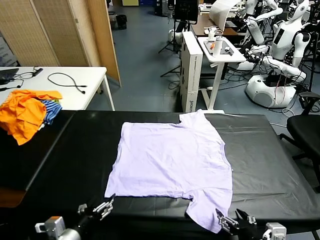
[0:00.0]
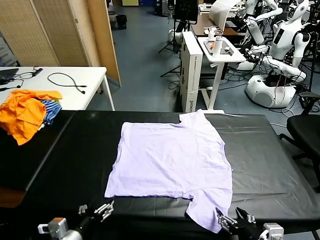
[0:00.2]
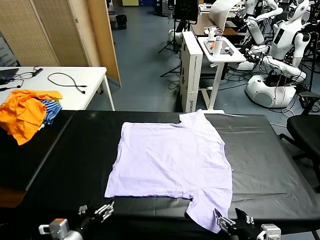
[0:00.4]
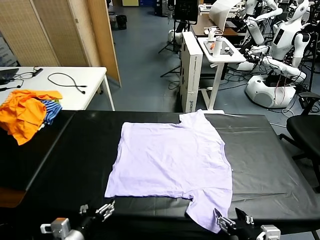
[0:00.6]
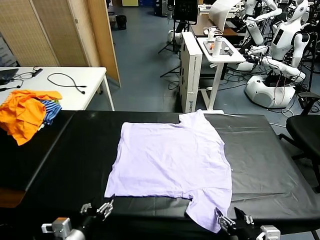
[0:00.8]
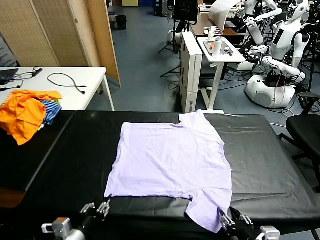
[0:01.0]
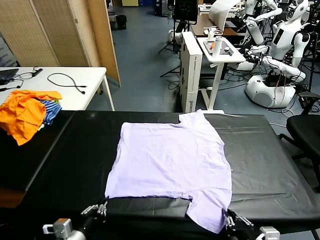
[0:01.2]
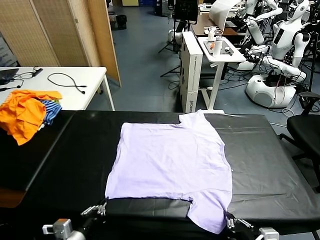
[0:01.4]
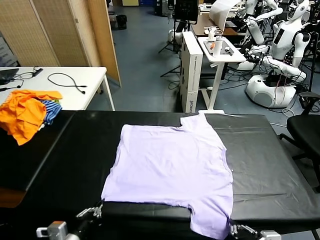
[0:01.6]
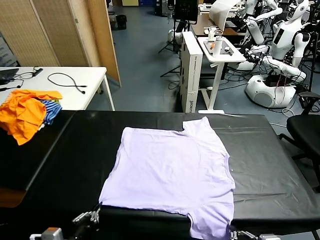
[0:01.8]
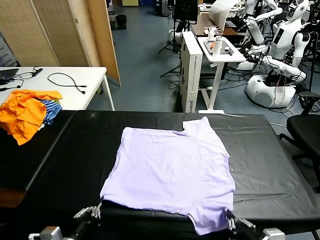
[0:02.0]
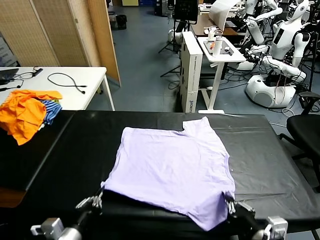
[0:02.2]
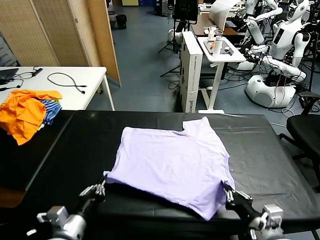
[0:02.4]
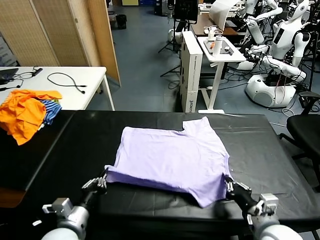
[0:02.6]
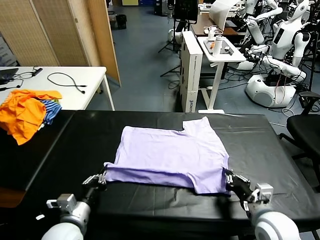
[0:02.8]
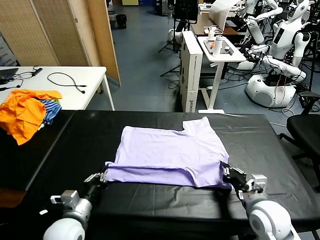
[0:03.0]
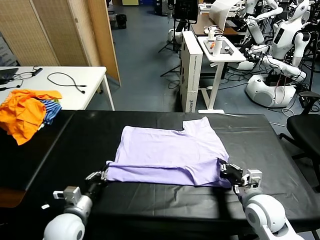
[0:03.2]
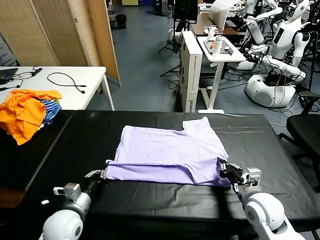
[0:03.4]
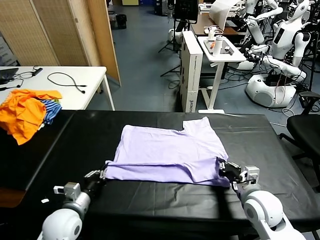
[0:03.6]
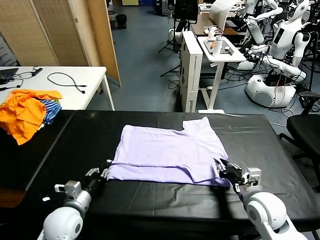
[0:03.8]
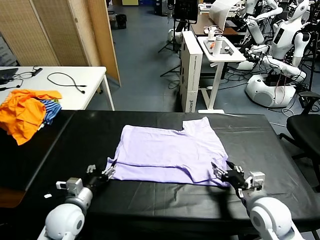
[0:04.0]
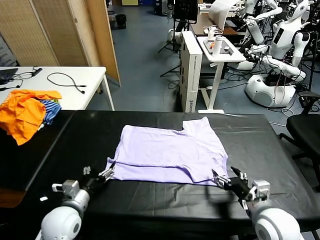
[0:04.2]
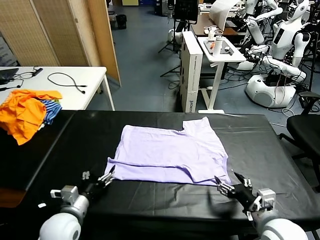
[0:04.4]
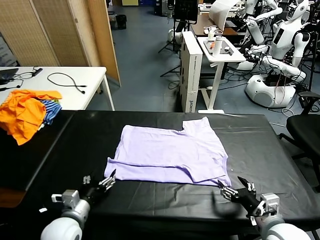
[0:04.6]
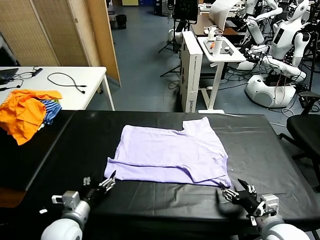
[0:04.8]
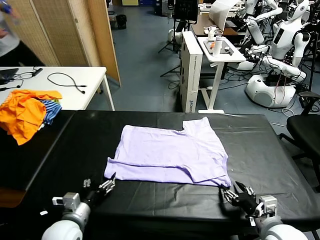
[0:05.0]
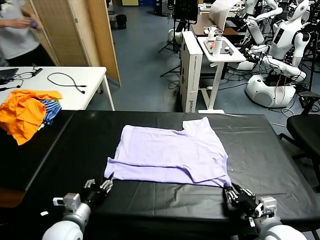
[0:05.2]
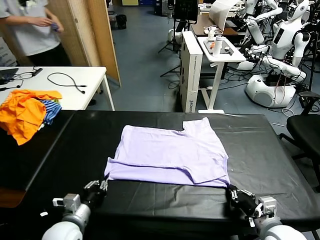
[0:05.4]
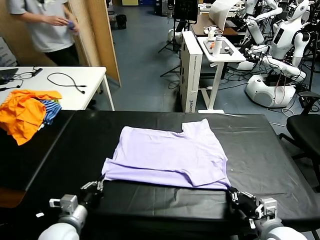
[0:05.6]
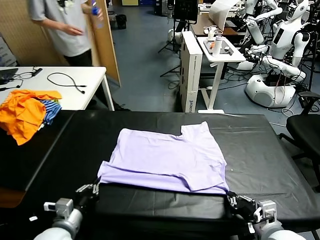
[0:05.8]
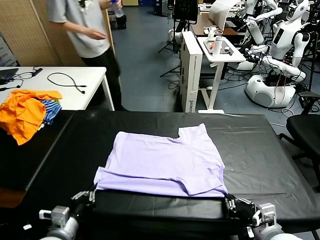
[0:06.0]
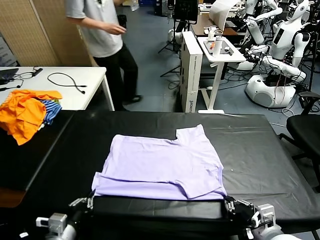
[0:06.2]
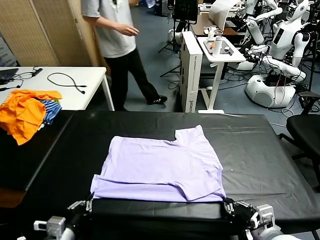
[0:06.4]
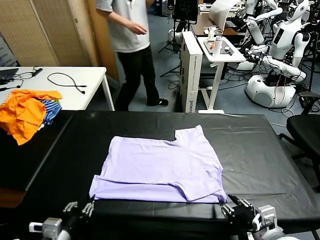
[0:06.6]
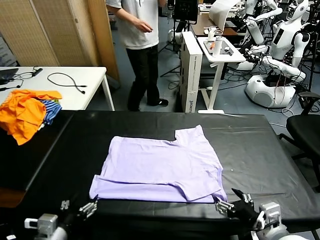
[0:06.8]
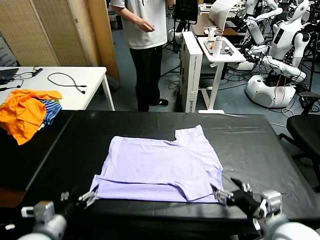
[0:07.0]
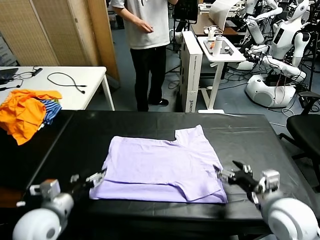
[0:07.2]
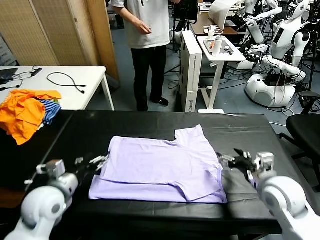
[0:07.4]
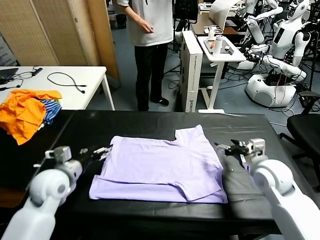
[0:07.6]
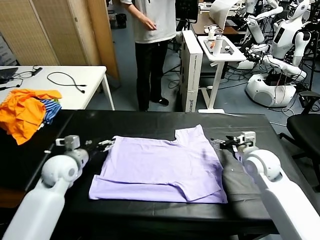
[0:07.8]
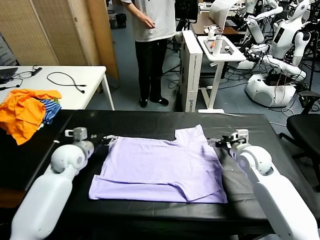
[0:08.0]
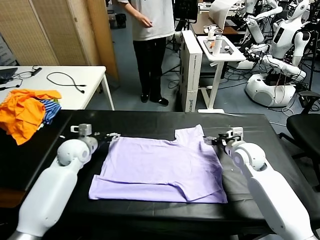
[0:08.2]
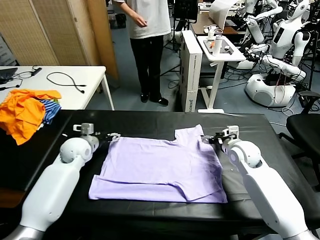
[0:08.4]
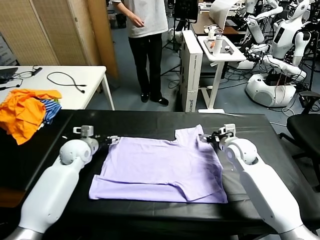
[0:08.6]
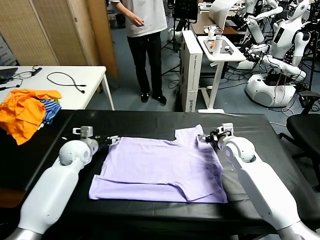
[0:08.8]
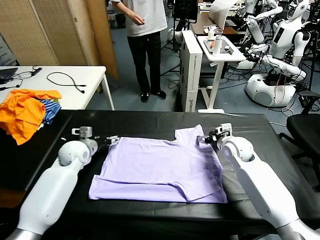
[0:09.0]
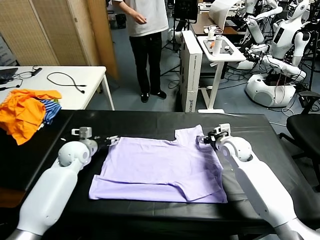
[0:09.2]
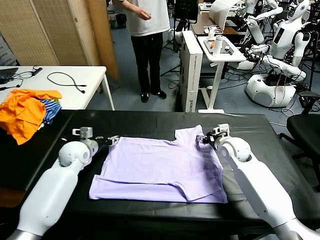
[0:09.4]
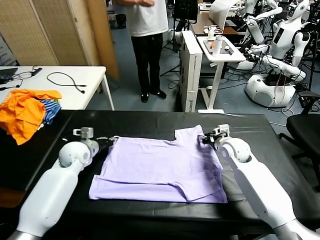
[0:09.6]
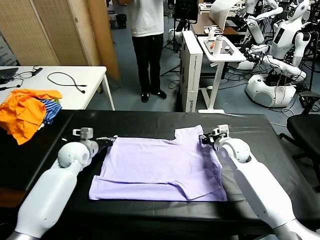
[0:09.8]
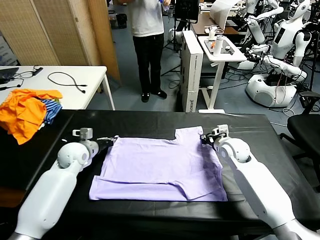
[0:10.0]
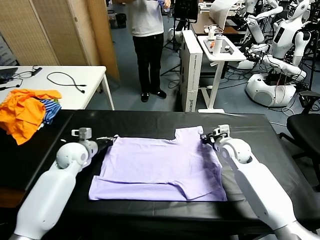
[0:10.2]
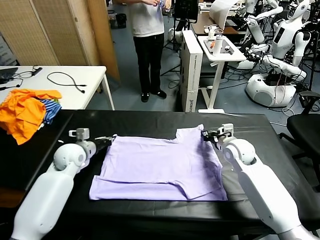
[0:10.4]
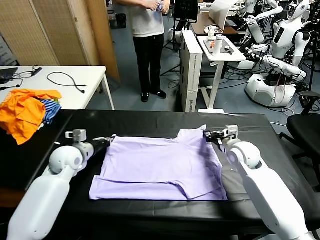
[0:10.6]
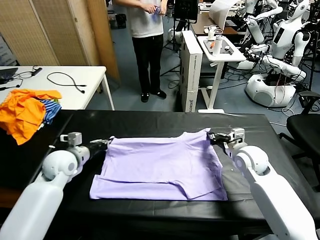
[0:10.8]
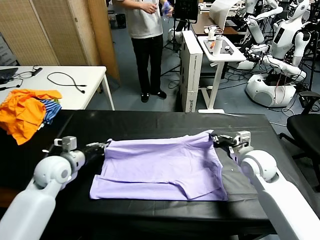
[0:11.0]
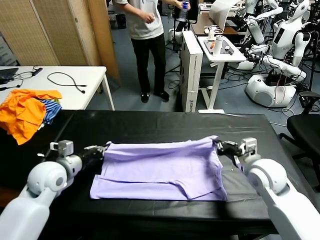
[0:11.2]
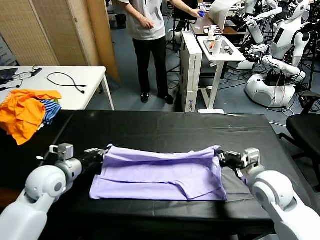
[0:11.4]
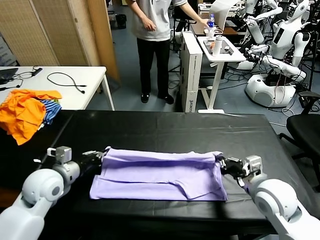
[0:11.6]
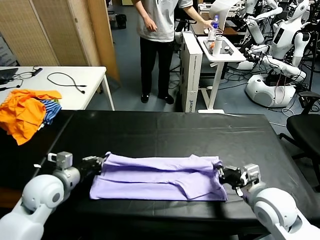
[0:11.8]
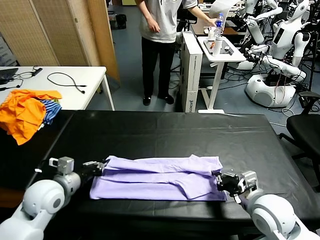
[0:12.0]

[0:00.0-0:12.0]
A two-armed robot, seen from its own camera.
Task of the whole recording: fold and organize the clothes.
Step, 0:00.0 to 0:01.4: use both grippers simultaneously to clamp the lower edge of the clothing fabric.
Step, 0:01.8 to 0:04.0: use both grippers to drag the lower edge of the fabric forward and fold it over the upper edge.
Step, 0:04.2 to 0:06.8: Drag the clothes downward with both gripper.
Step, 0:07.0 to 0:09.8: use both grippers simultaneously to clamp the upper edge of the clothing fabric.
0:01.6 to 0:03.0: The right gripper moves forward, some 20 cm. The left gripper moves forward, about 10 cm.
0:03.0 to 0:04.4: The right gripper heads backward, covering approximately 10 cm, and opens its fingers, while the left gripper opens up.
0:04.4 to 0:06.0: The left gripper goes some 5 cm backward, and closes; the right gripper closes up.
0:06.0 to 0:07.6: The two grippers go some 20 cm forward. The right gripper opens its fingers. The left gripper opens its fingers.
0:07.6 to 0:09.0: The right gripper travels forward by roughly 5 cm. The left gripper travels forward by approximately 10 cm.
0:09.0 to 0:10.4: The left gripper closes, while the right gripper closes up.
0:10.4 to 0:12.0: The grippers both shift backward by about 15 cm.

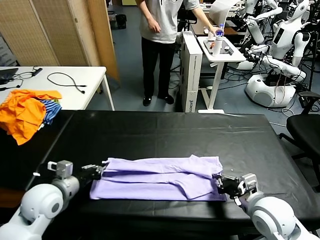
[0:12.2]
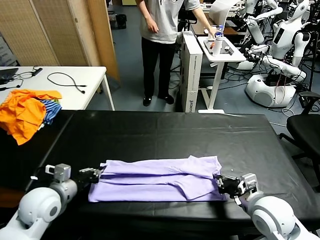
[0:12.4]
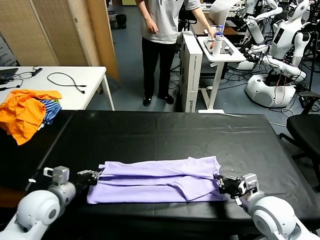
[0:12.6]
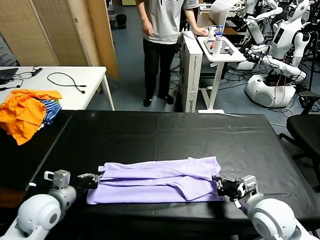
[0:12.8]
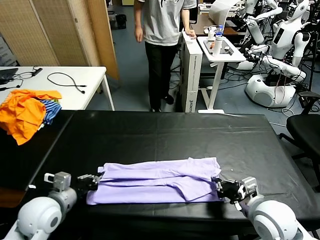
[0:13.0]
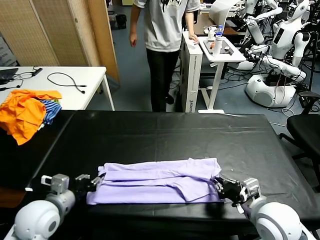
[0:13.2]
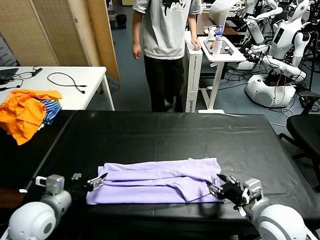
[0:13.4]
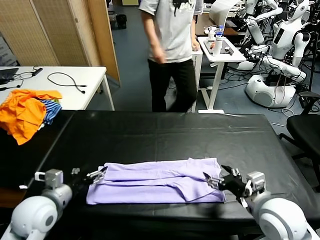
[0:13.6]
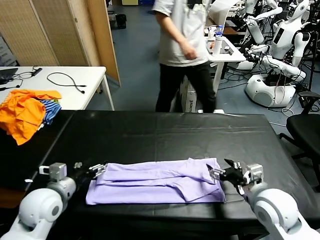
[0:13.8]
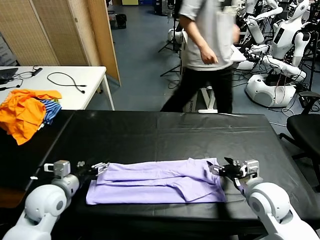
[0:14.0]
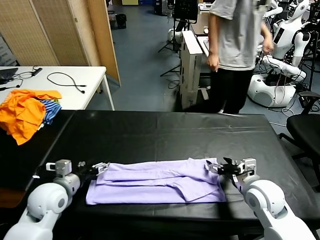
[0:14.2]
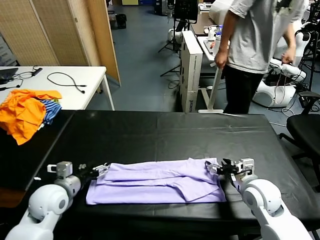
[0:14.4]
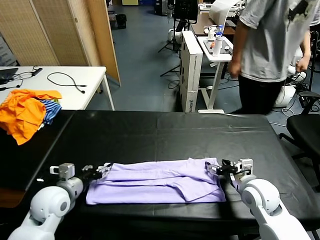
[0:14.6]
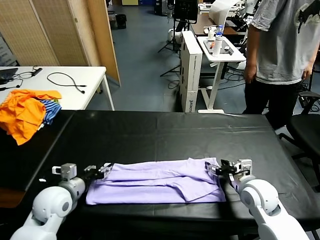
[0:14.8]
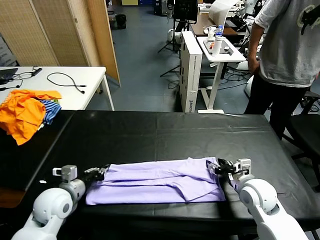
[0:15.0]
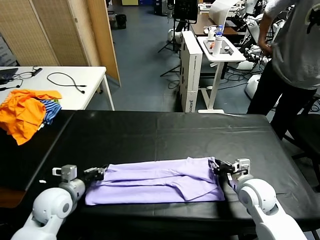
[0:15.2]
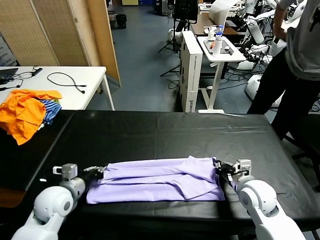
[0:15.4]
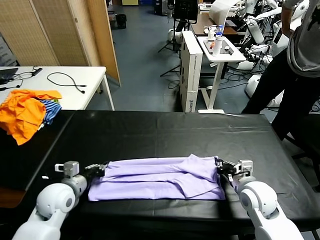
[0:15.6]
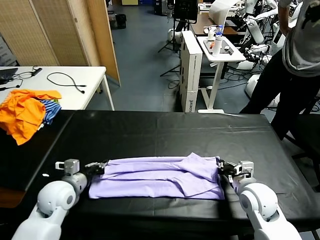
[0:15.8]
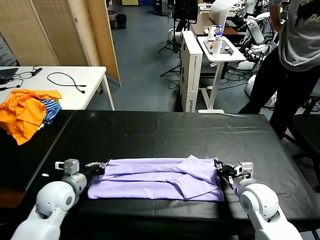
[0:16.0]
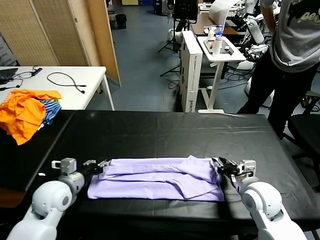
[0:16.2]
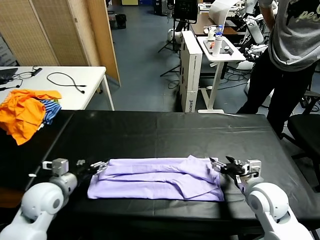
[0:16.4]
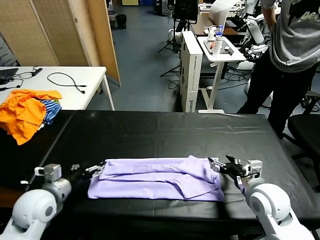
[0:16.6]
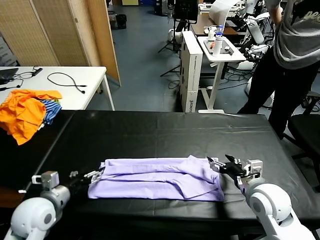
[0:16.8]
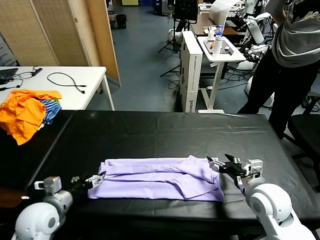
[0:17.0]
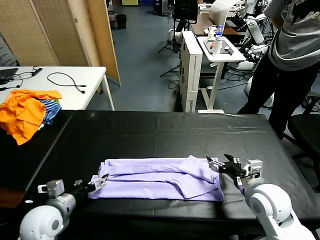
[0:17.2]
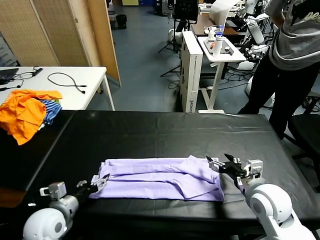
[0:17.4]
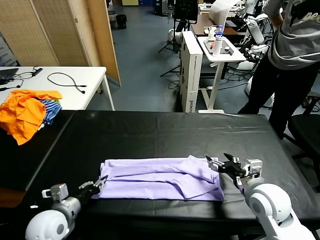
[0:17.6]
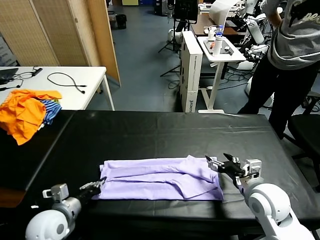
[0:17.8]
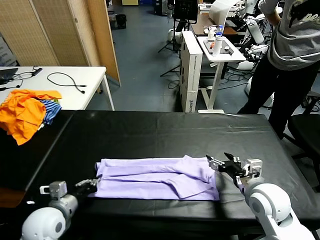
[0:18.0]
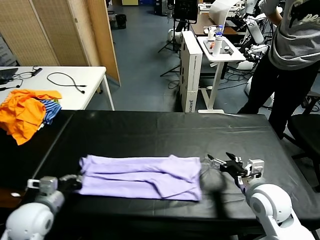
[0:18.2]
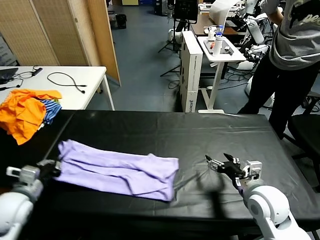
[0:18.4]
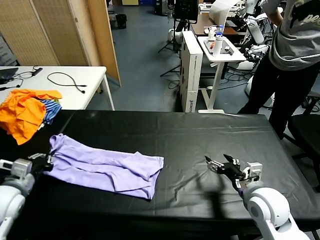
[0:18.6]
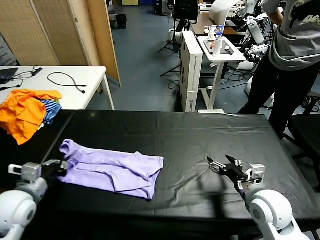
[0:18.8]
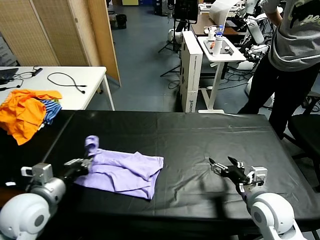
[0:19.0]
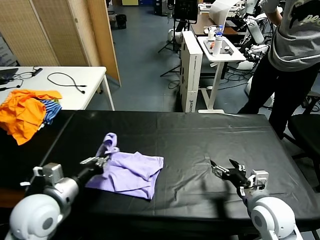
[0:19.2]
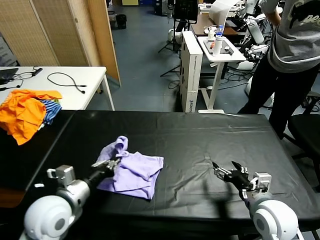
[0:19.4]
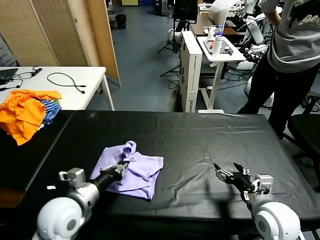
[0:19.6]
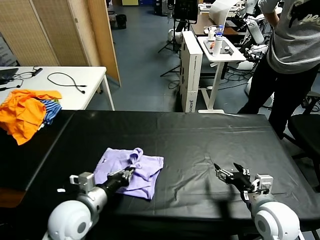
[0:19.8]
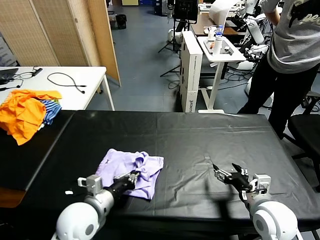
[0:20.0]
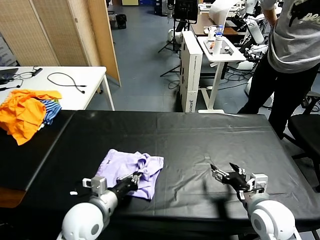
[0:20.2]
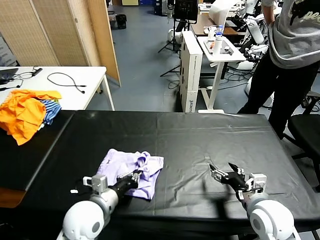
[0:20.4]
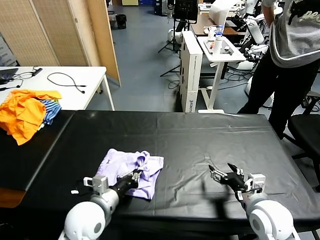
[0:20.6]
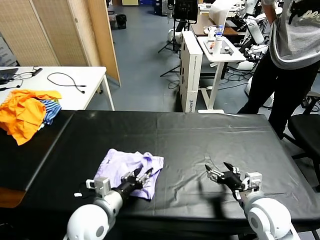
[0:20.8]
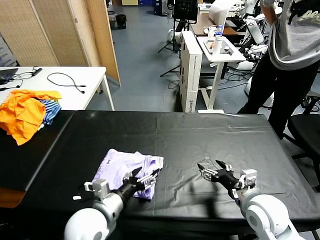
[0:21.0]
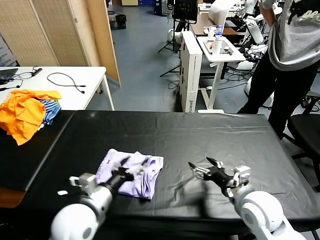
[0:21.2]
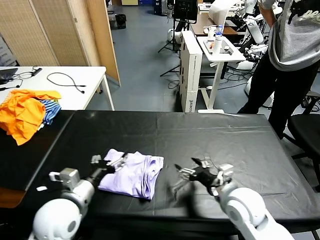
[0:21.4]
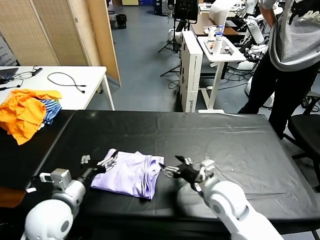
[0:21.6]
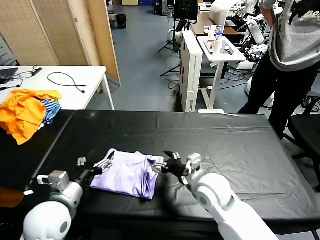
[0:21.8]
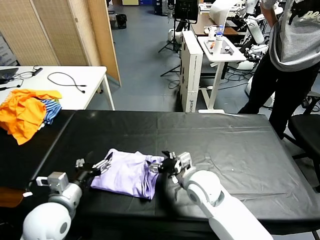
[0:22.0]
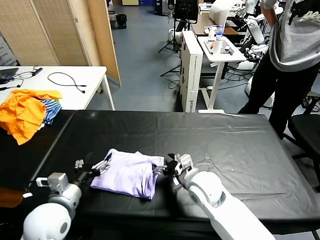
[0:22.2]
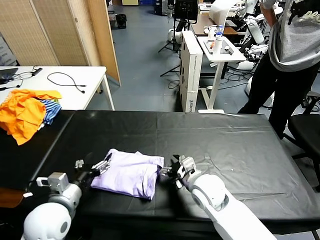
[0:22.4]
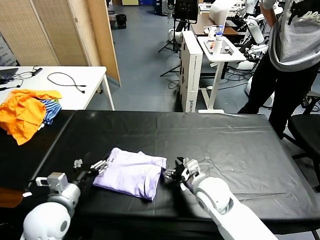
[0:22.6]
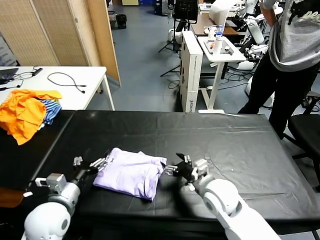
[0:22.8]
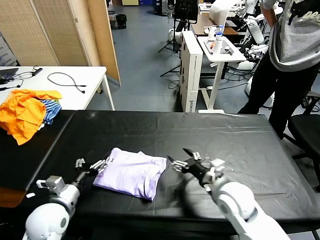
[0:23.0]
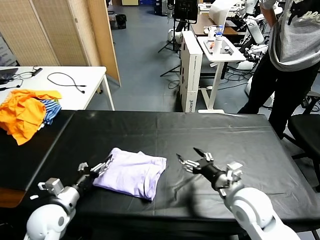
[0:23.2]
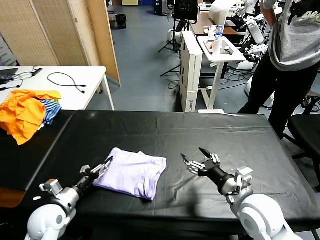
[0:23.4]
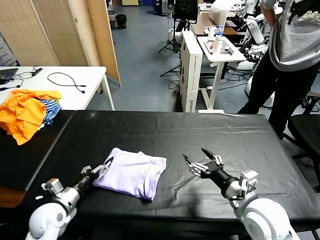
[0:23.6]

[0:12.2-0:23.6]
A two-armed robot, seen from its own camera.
Task of the whole recording: fold and organize the clothes.
Step, 0:12.2 to 0:16.6: use both grippers to drag the upper edge of the fabric backward and fold it over the lower edge.
Step, 0:16.8 to 0:17.8: use the left gripper to clamp the left edge of the fabric.
Step, 0:18.0 to 0:22.8: use the left gripper to drag the left edge of the fabric to the left and folds it over the right edge.
0:12.2 to 0:13.6: The left gripper opens. The right gripper opens up.
0:13.6 to 0:15.0: The right gripper goes roughly 10 cm downward and forward, and closes its fingers, while the left gripper shifts by about 5 cm, and closes up.
0:15.0 to 0:16.4: The left gripper opens up; the right gripper shifts by approximately 5 cm, and opens.
0:16.4 to 0:17.8: The left gripper shifts roughly 5 cm backward, and closes.
0:17.8 to 0:19.4: The left gripper is displaced upward by about 10 cm, and moves some 10 cm to the left and comes back.
0:19.4 to 0:20.8: The left gripper shifts about 10 cm to the right and downward, and opens its fingers.
0:20.8 to 0:22.2: The left gripper goes approximately 10 cm to the left, and opens. The right gripper heads to the left and forward, covering approximately 15 cm.
0:22.2 to 0:23.6: The left gripper moves downward and to the left, roughly 15 cm. Meanwhile the right gripper moves to the right, backward and upward, roughly 15 cm.
